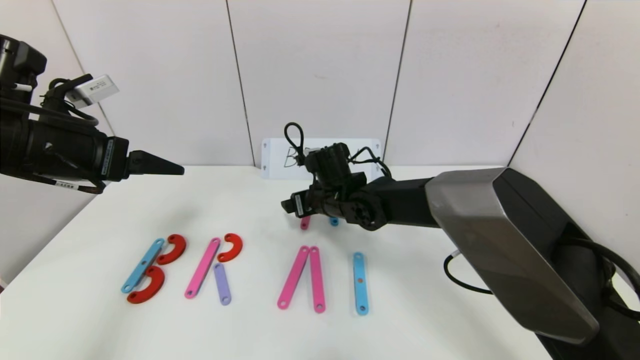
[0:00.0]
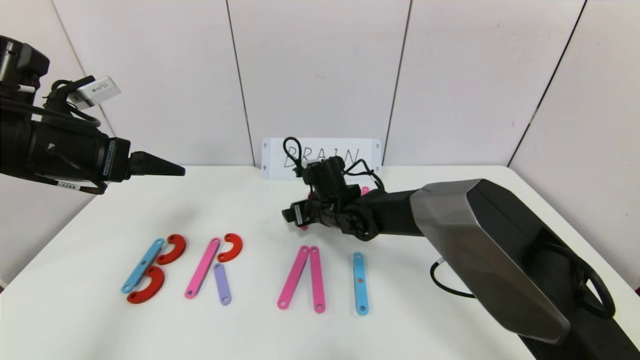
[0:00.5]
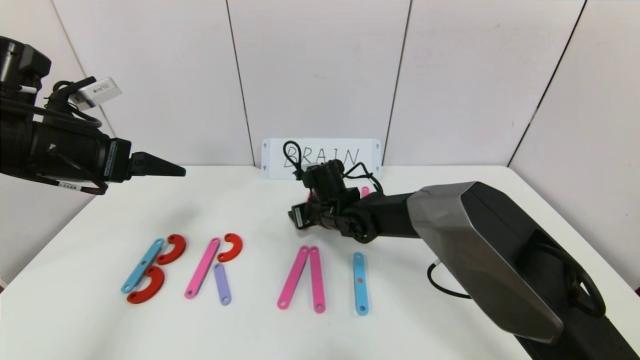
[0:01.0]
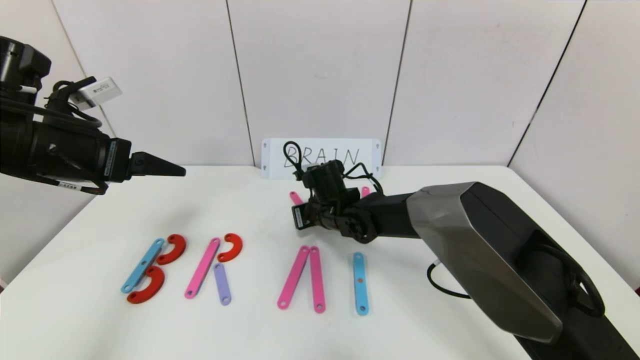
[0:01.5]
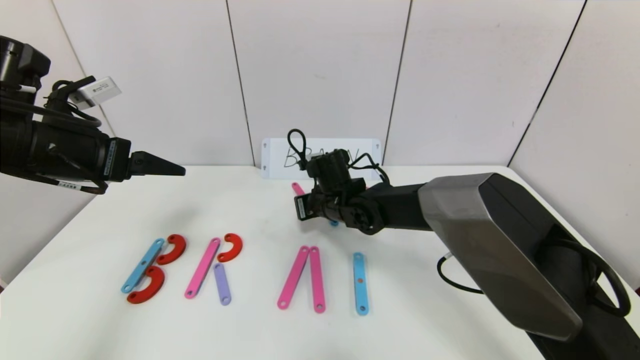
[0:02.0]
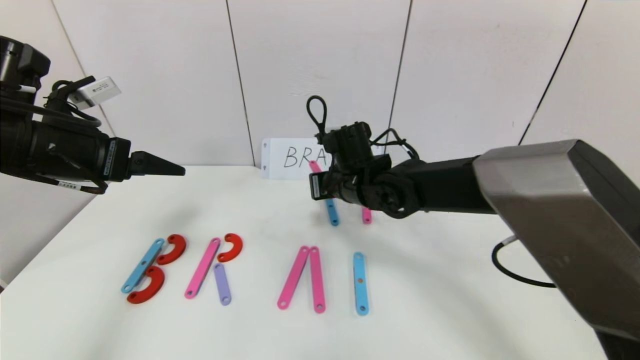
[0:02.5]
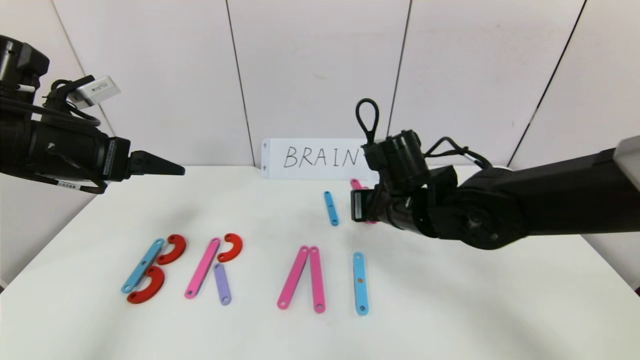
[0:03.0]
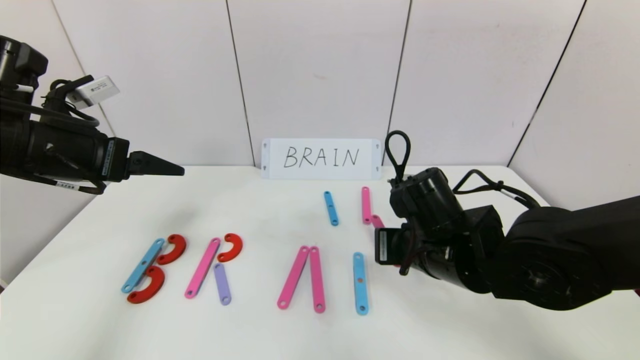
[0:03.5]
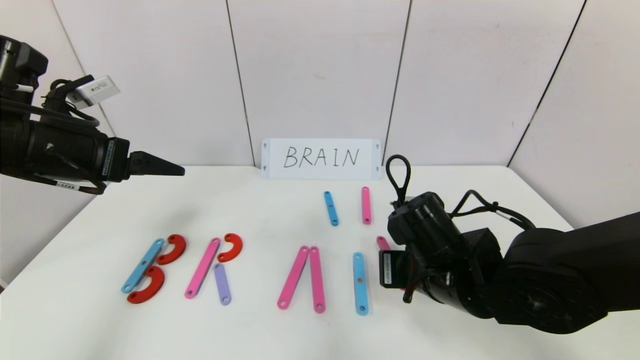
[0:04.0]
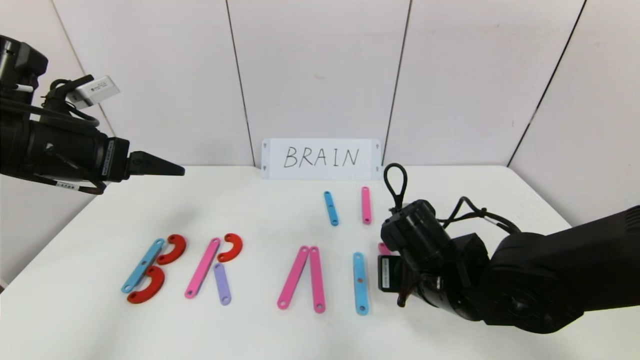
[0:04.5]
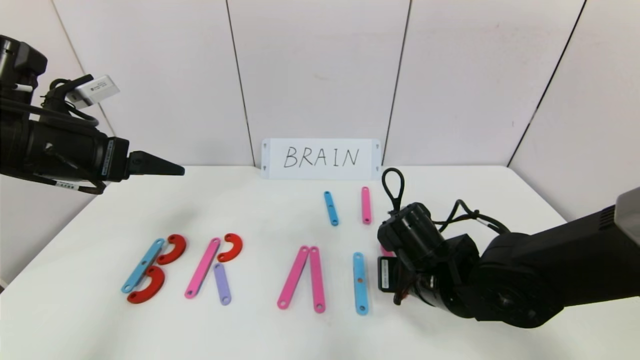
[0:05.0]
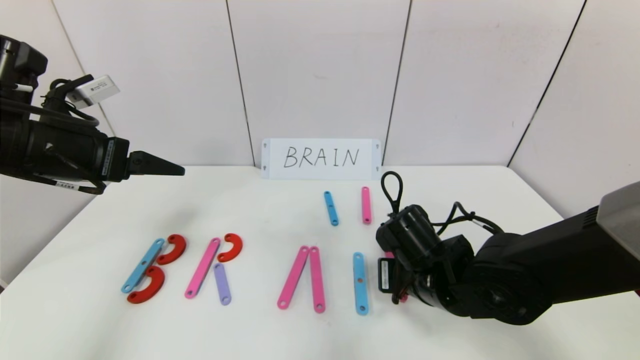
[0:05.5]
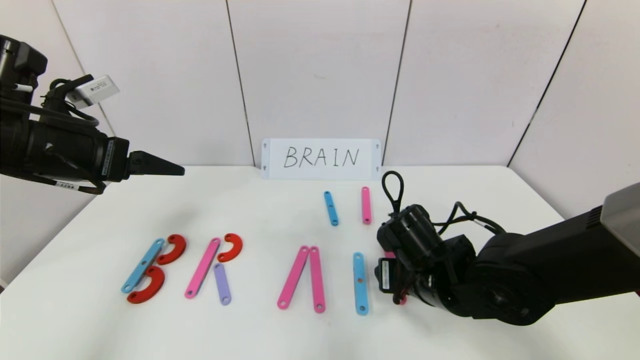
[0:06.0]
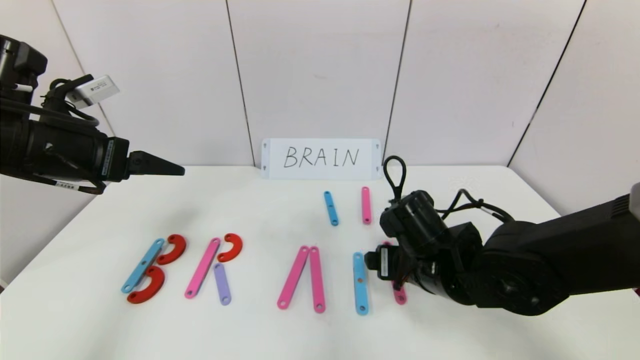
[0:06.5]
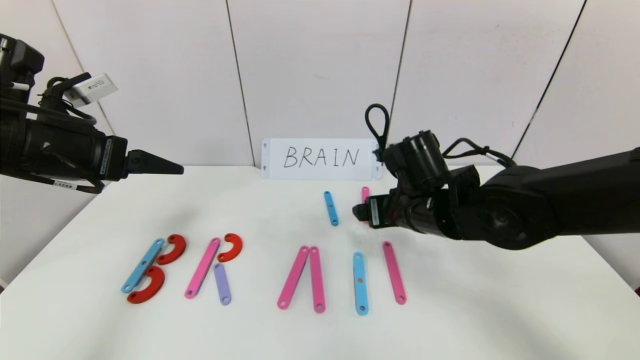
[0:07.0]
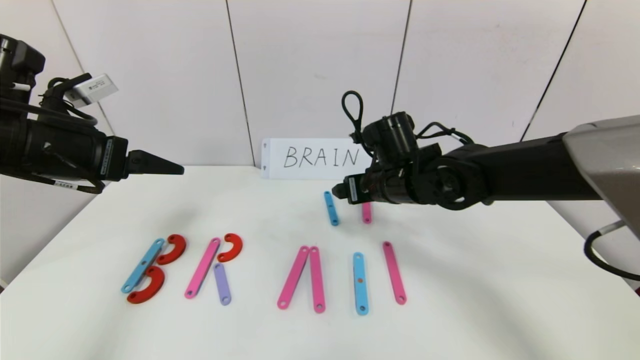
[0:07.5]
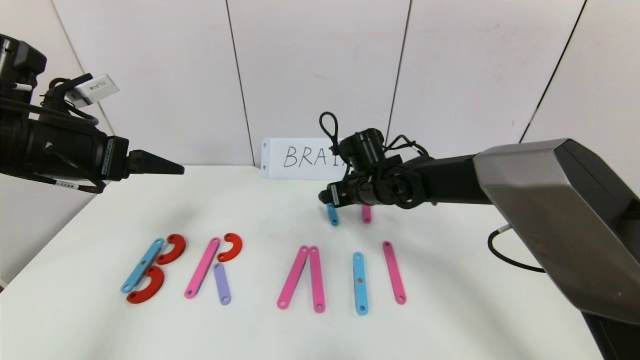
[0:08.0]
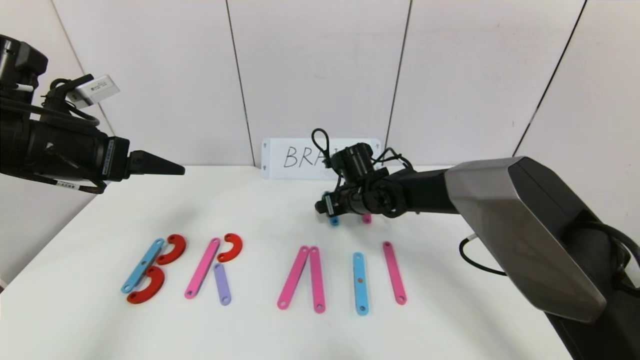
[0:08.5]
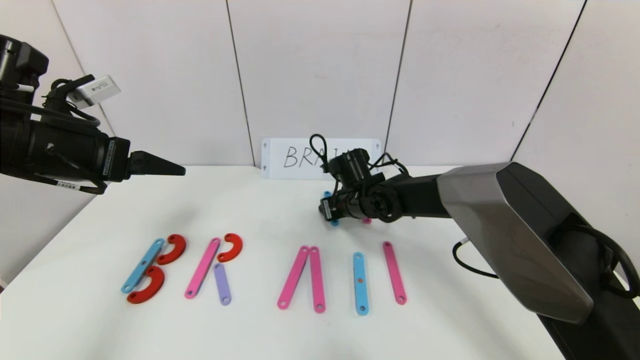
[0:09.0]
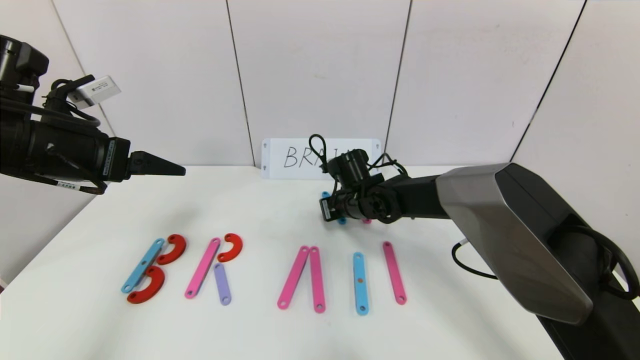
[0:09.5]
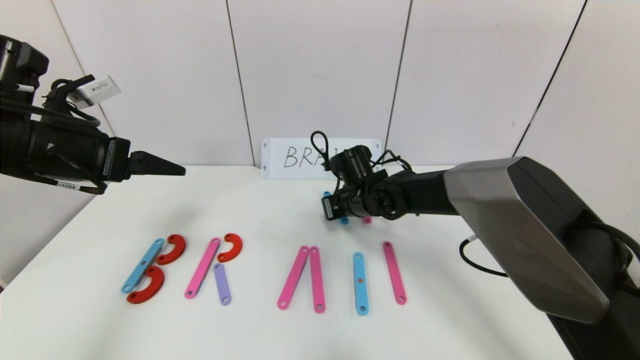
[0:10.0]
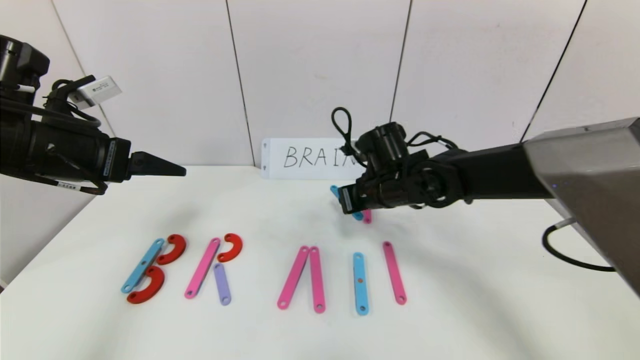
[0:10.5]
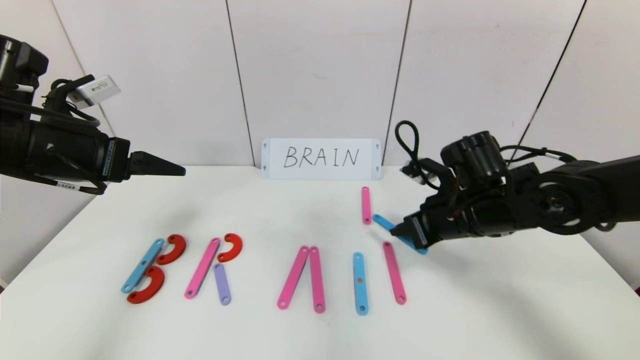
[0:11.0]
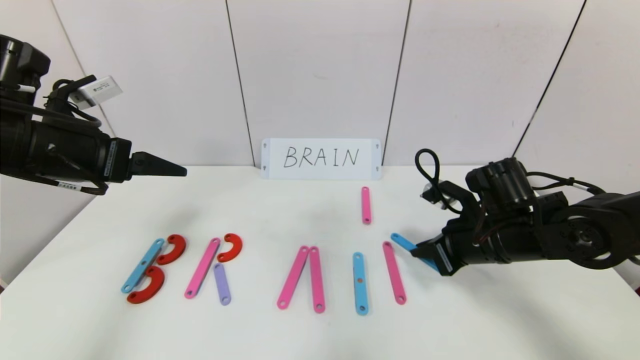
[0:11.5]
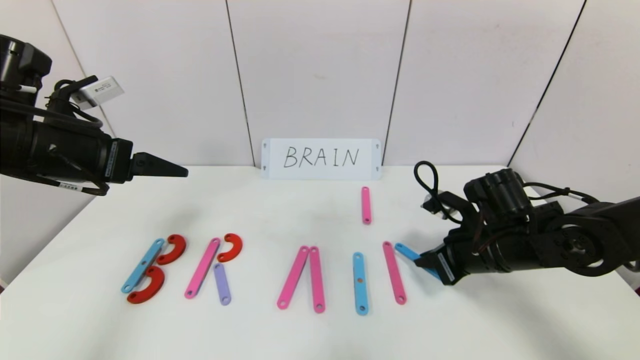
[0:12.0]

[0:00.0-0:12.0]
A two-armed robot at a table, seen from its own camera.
Task of the whole recording: rearrange the word baai as brain.
0:00.0 to 0:02.0: The right gripper closes its fingers.
0:02.0 to 0:04.0: The right gripper goes roughly 20 cm backward and to the right.
0:04.0 to 0:06.0: The right gripper opens its fingers.
0:06.0 to 0:08.0: The right gripper travels forward by approximately 15 cm.
0:08.0 to 0:10.0: The right gripper closes.
0:10.0 to 0:12.0: The right gripper is displaced to the right and backward by roughly 20 cm.

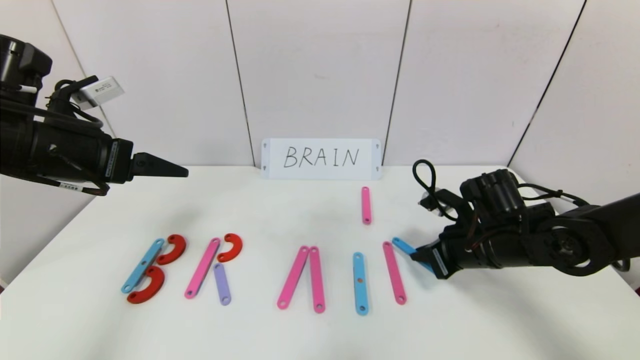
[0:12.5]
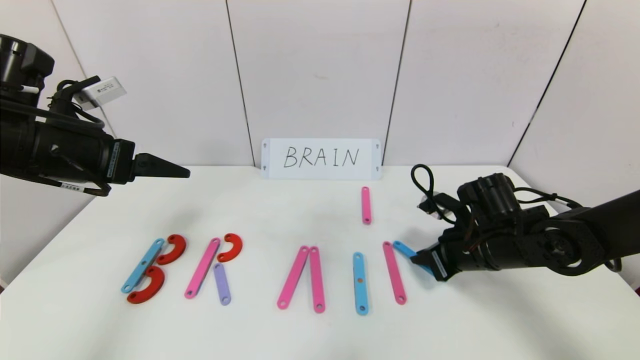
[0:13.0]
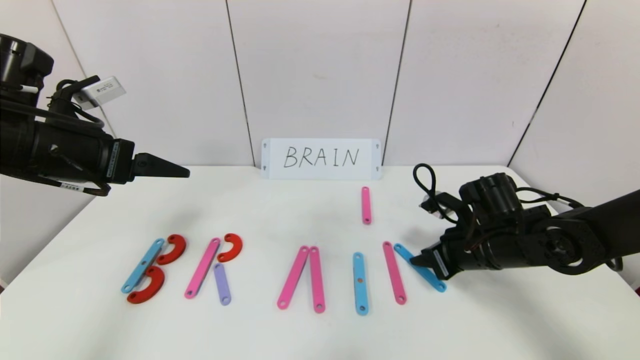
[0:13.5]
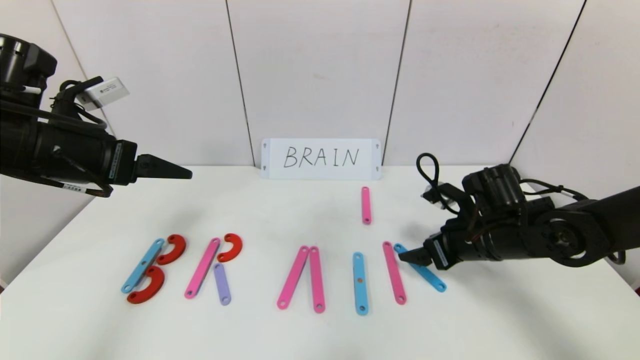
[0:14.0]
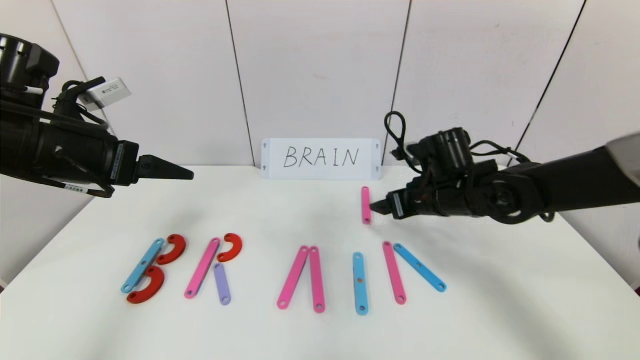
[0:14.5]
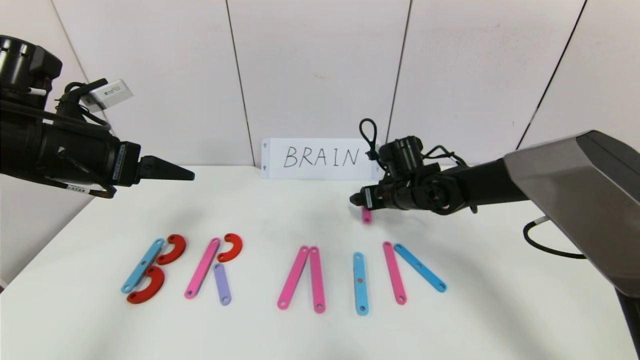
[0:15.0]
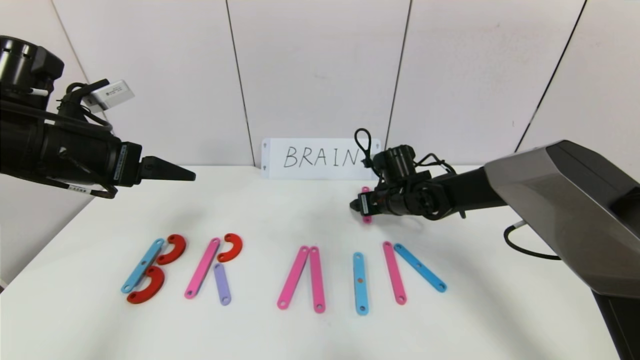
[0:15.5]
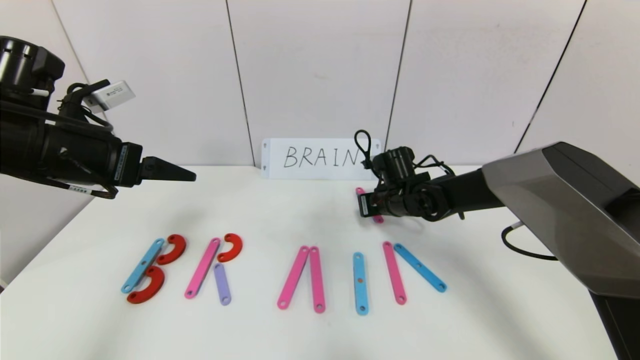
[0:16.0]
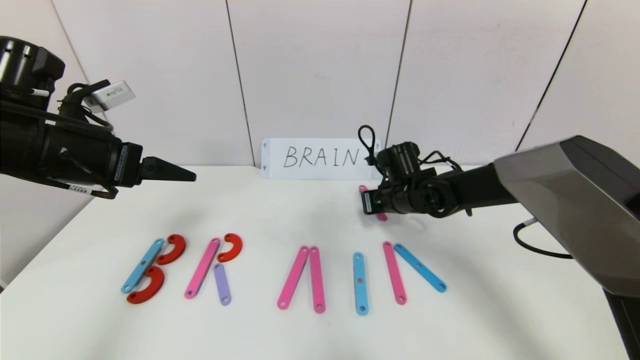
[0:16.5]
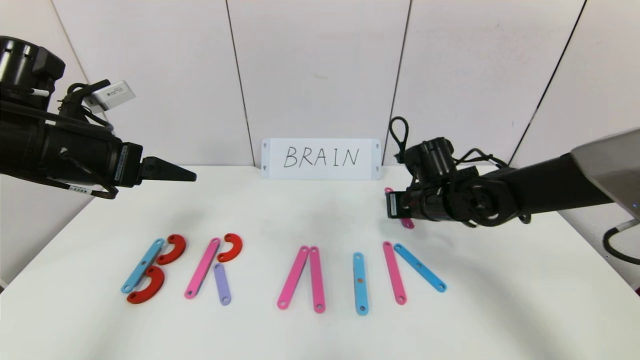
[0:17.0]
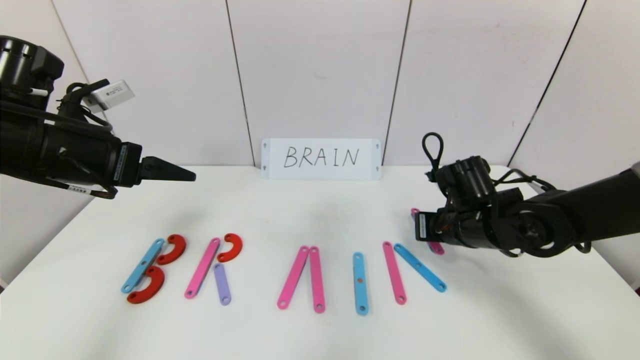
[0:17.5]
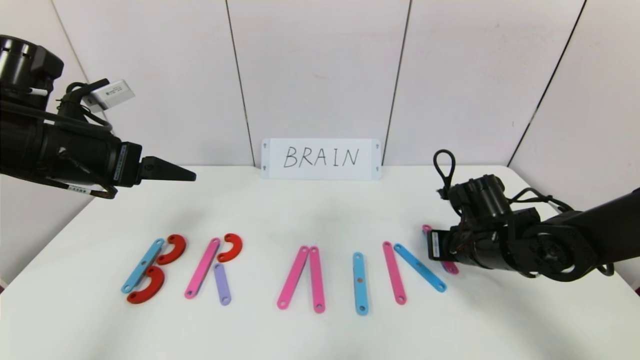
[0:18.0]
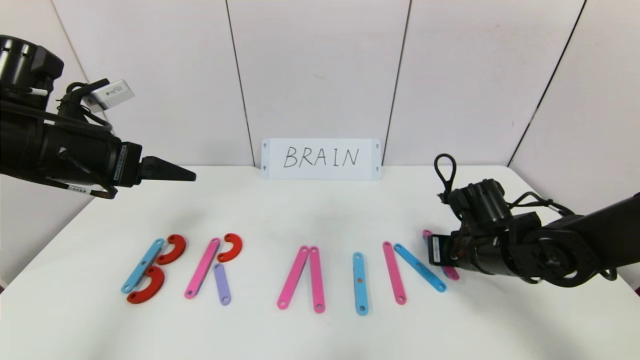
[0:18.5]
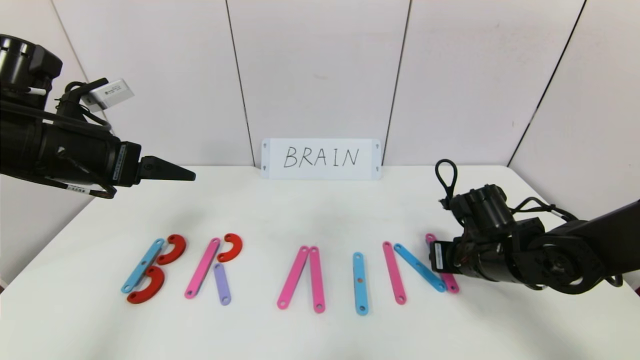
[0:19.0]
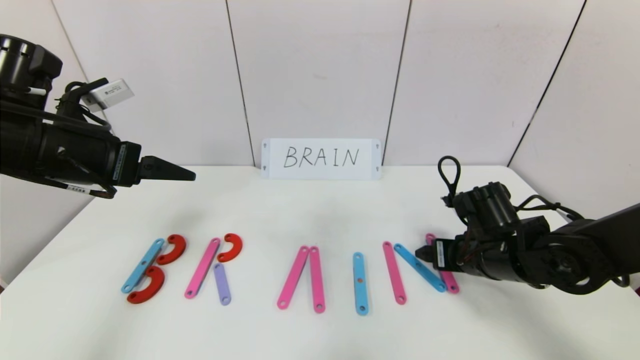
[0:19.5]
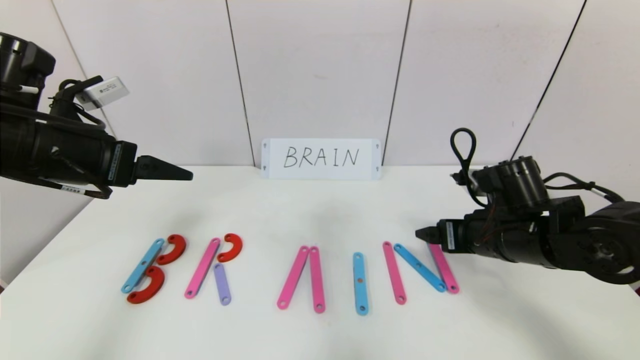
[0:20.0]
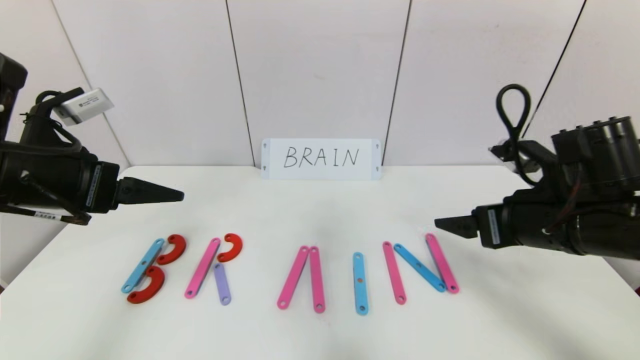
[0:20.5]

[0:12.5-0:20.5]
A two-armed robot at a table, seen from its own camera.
Task of the whole recording: rearrange the word baai as brain.
Step, 0:12.5 to 0:19.5: Place the character N after character I.
0:12.5 to 0:14.5: The right gripper is displaced forward and to the left by some 10 cm, and opens.
0:14.5 to 0:16.5: The right gripper travels forward by about 5 cm, and closes.
0:16.5 to 0:18.5: The right gripper is displaced backward and to the right by roughly 15 cm.
0:18.5 to 0:20.5: The right gripper moves upward and backward, some 15 cm, and opens.
